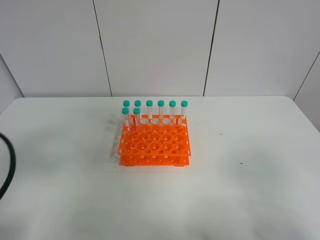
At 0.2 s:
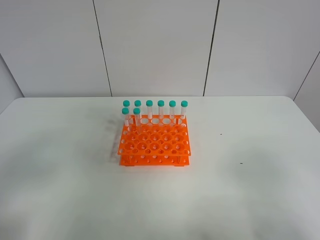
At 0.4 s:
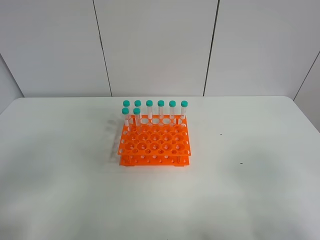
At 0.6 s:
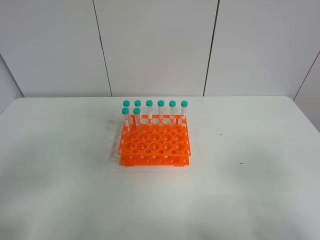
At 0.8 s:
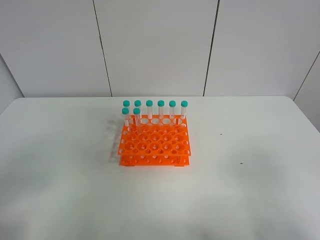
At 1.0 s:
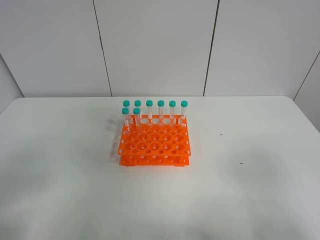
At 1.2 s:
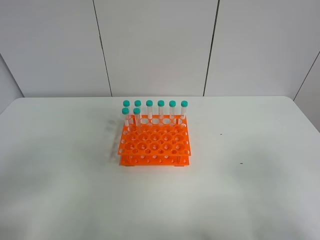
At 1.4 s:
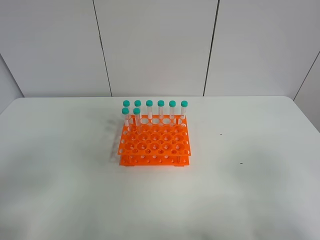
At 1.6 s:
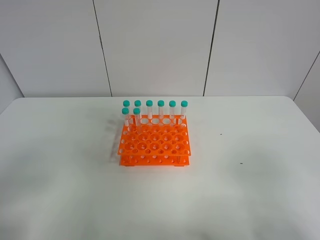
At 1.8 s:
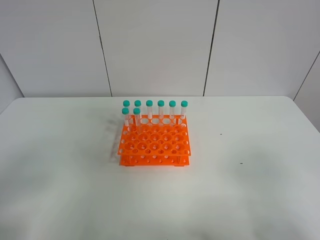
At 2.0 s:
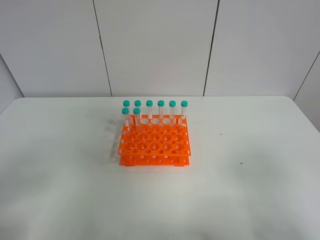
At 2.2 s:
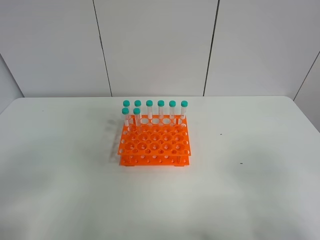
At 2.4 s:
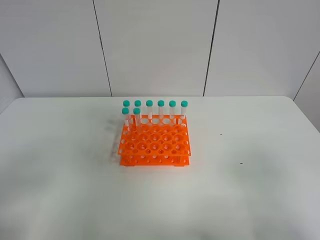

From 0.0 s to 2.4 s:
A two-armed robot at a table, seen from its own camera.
Task of the whole recording: Put the test tube on the table back onto the test tube rack.
From 0.0 s to 1.2 s: The left gripper is displaced backward by roughly 10 cm.
From 1.2 s to 2.4 s: Both grippers stay about where they are.
